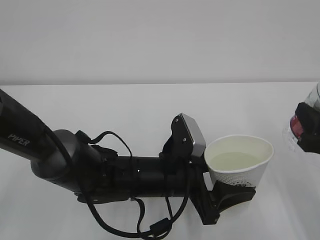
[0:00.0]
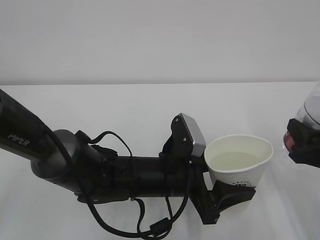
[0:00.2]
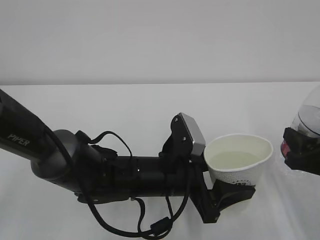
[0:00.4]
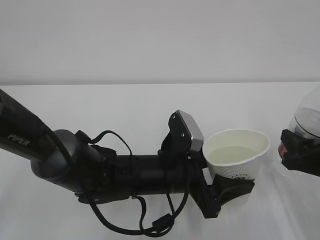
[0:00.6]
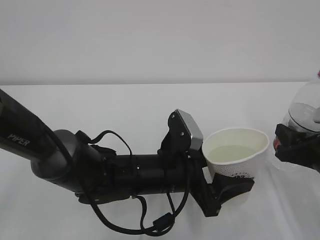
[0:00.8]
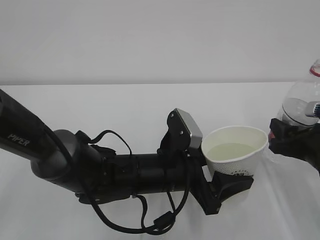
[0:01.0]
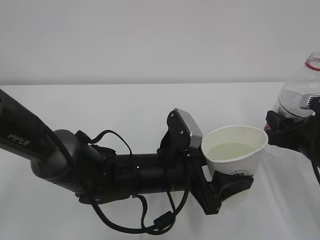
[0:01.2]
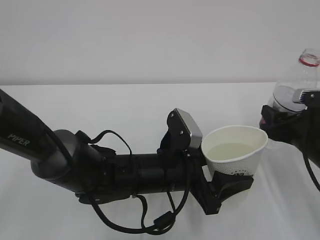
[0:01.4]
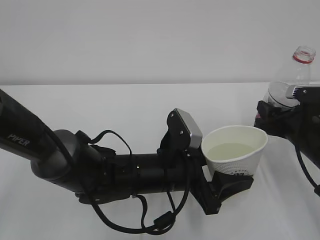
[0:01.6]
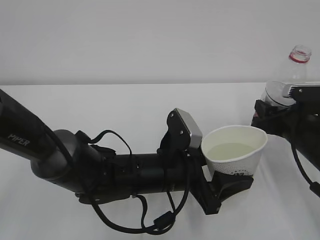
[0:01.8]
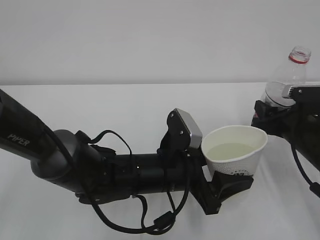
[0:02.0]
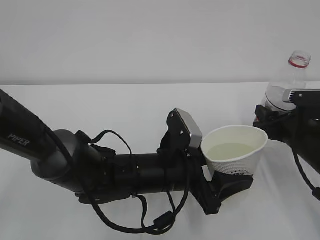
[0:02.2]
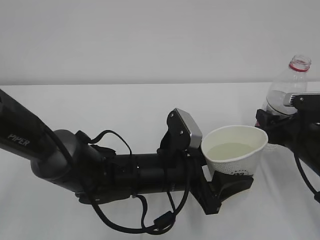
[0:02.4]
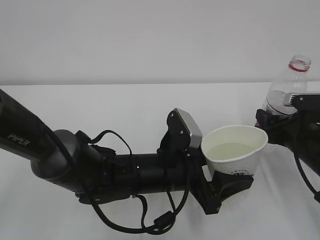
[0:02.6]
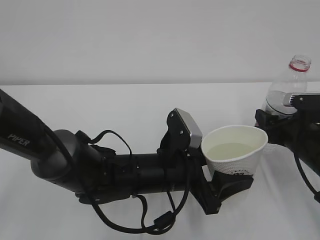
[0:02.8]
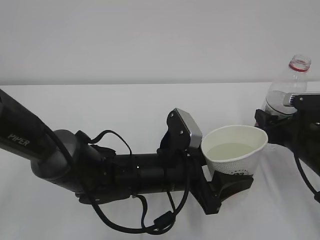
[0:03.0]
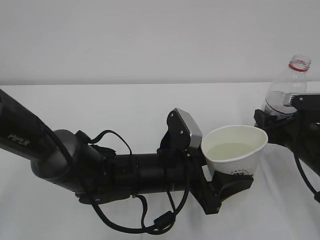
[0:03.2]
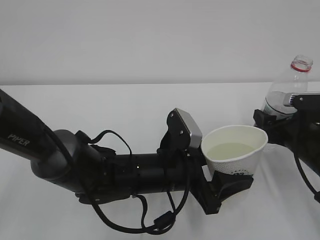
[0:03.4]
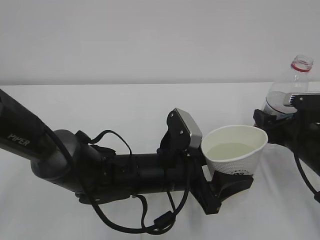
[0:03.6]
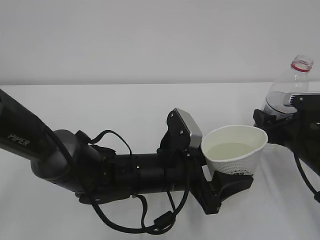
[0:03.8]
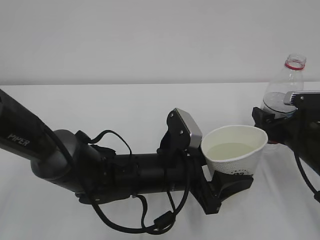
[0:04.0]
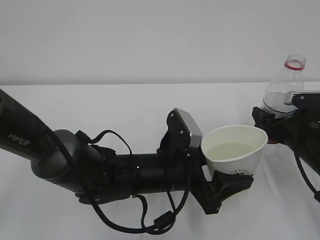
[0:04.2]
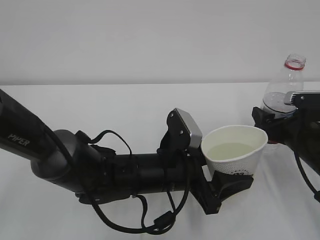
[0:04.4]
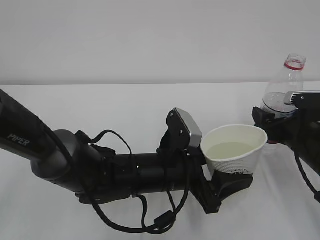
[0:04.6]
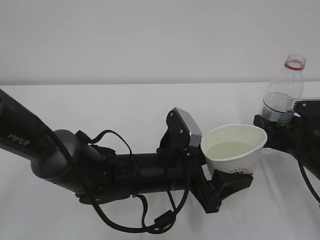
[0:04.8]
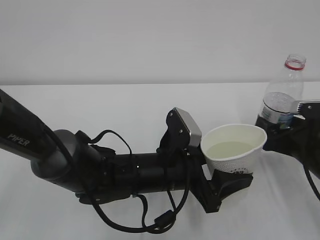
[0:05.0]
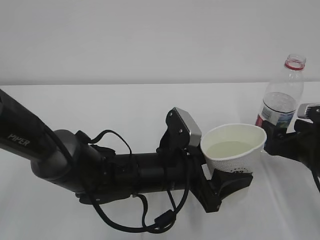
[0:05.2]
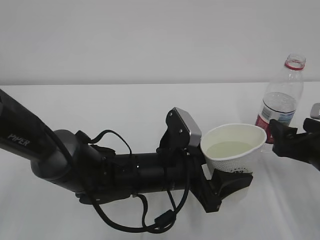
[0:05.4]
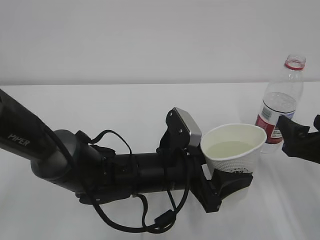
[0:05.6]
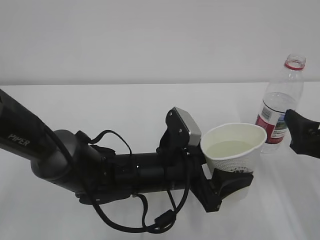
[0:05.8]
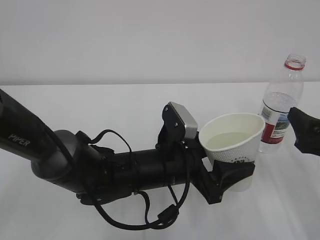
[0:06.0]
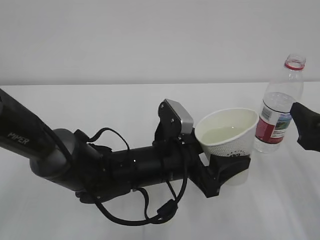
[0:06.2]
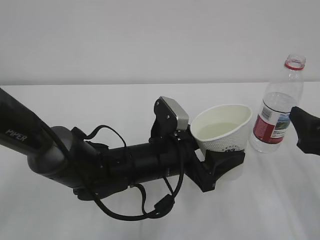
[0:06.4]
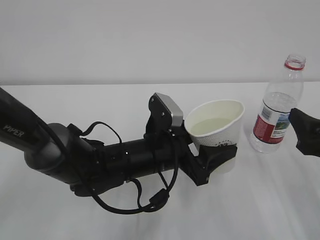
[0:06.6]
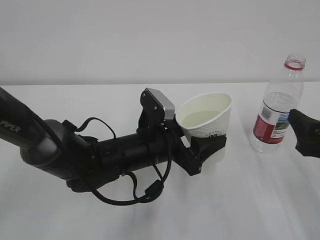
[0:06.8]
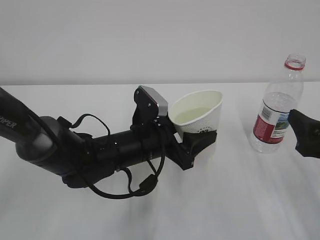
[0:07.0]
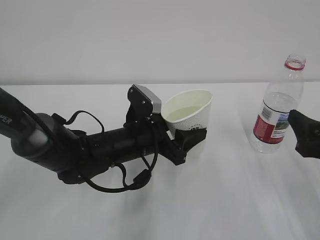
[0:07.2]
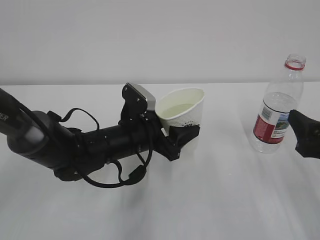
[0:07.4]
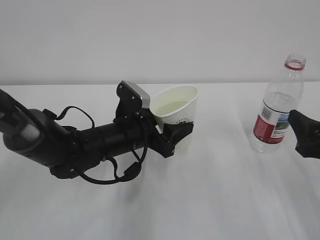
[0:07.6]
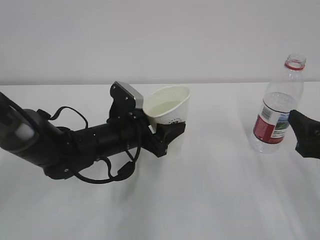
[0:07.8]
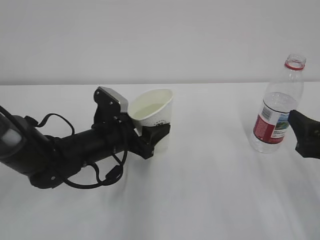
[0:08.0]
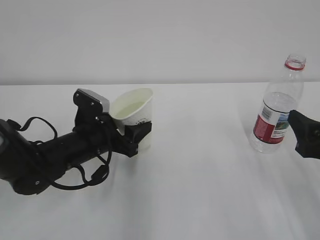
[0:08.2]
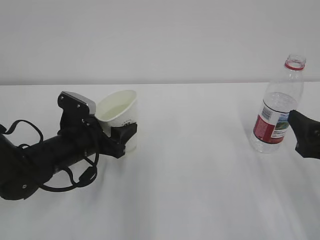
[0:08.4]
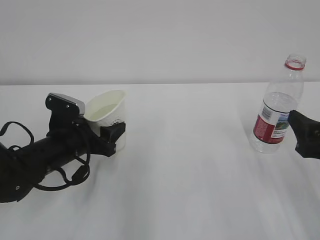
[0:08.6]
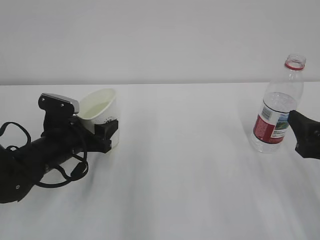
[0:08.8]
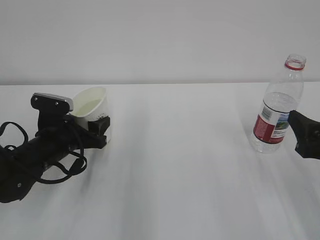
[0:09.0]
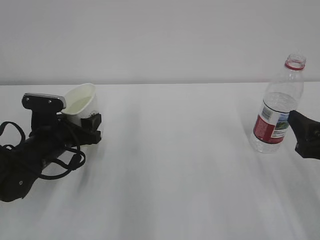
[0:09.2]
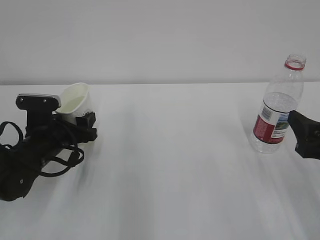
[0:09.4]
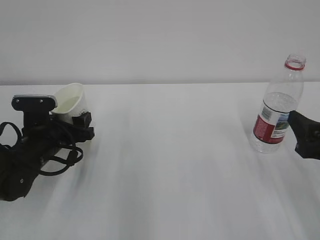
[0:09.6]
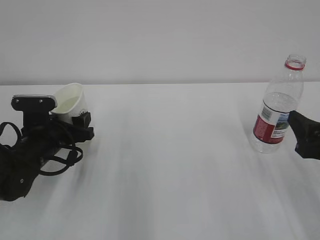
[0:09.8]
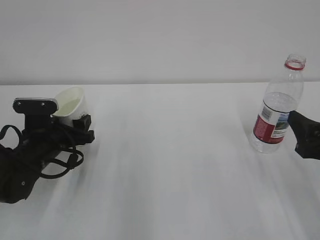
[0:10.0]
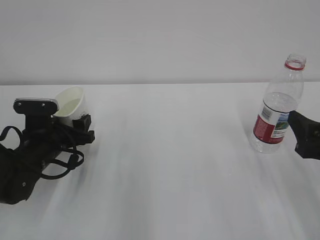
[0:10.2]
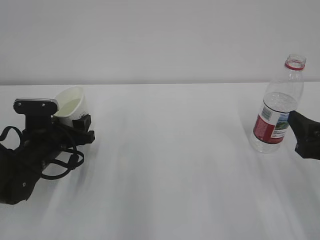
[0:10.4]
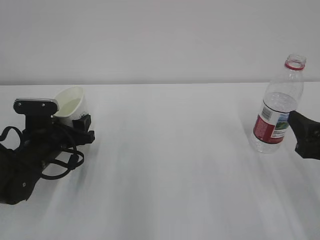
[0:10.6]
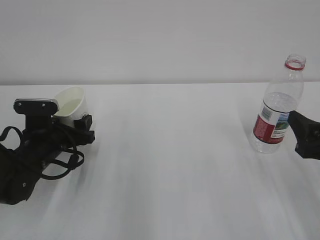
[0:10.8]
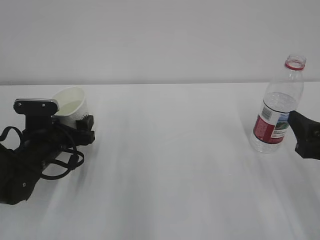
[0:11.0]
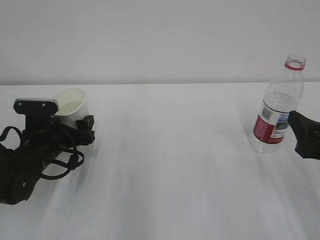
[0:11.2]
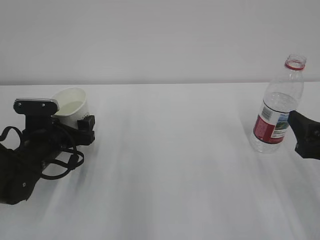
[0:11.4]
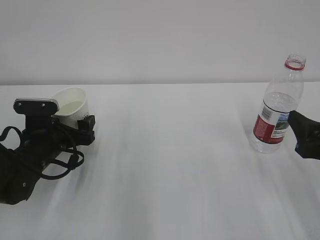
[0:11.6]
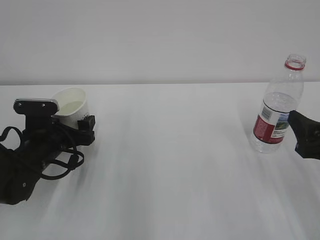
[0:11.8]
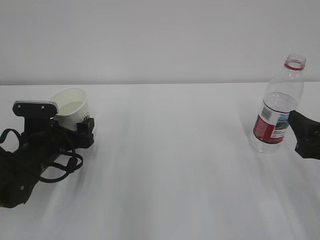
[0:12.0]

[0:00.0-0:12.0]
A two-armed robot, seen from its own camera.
0:00.0 to 0:01.6: The right gripper shifts about 10 cm forward and downward.
0:01.6 to 0:03.0: Both grippers stay put.
0:03.0 to 0:04.4: The right gripper opens.
0:04.4 to 0:06.0: The right gripper heads backward and upward, covering some 10 cm.
0:06.0 to 0:07.6: The left gripper is displaced forward and to the left by roughly 10 cm.
0:07.6 to 0:09.0: The left gripper moves to the left, approximately 15 cm.
0:09.0 to 0:10.4: The grippers move only a little.
0:10.4 to 0:12.0: The left gripper opens.

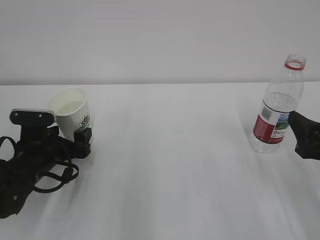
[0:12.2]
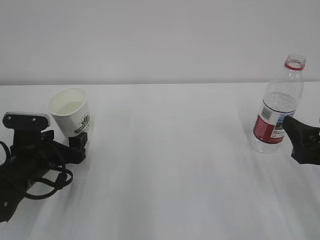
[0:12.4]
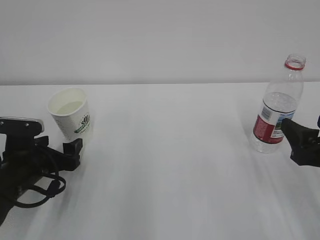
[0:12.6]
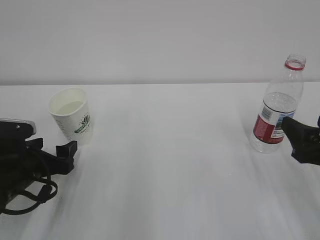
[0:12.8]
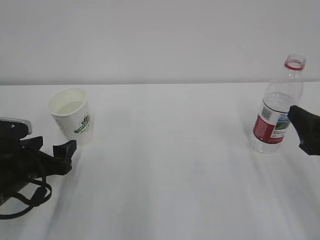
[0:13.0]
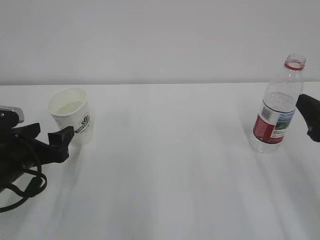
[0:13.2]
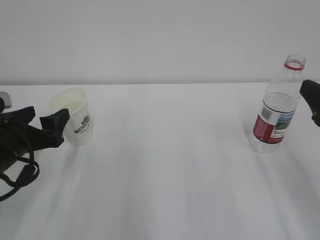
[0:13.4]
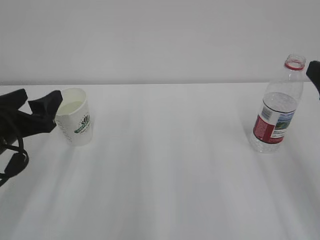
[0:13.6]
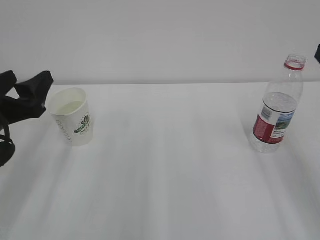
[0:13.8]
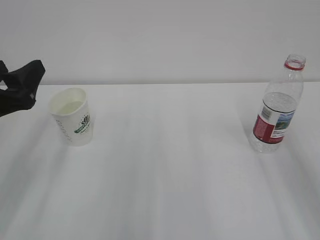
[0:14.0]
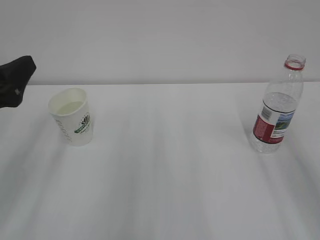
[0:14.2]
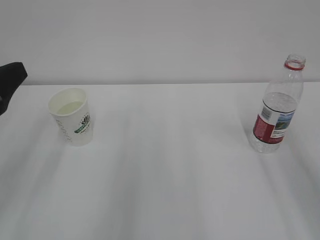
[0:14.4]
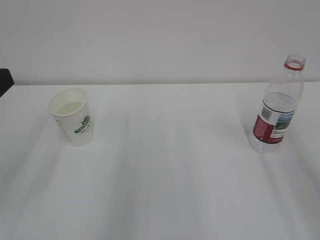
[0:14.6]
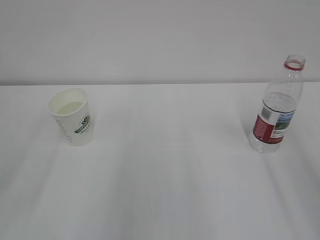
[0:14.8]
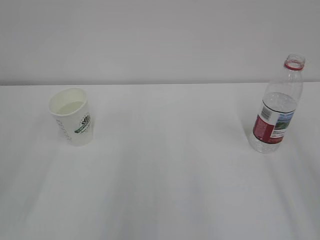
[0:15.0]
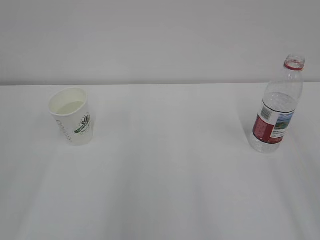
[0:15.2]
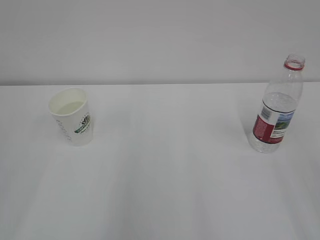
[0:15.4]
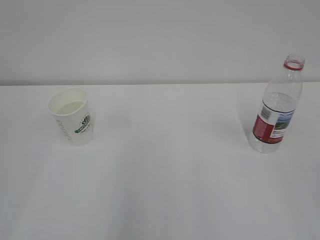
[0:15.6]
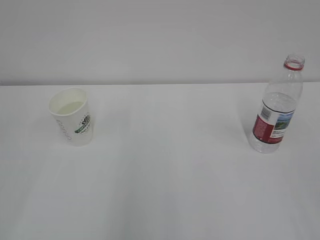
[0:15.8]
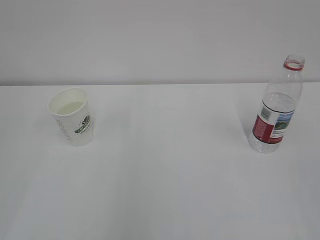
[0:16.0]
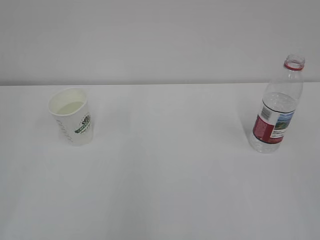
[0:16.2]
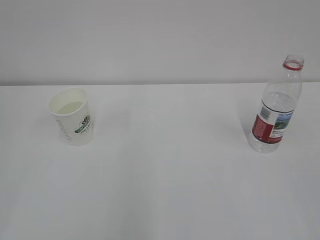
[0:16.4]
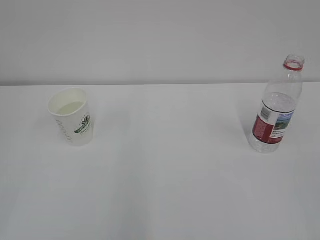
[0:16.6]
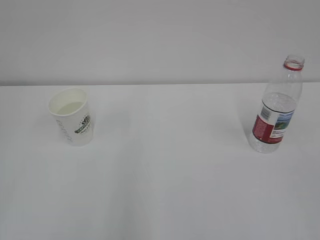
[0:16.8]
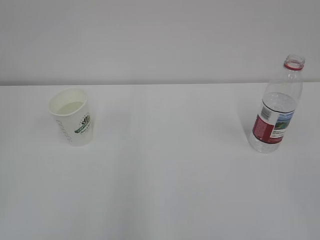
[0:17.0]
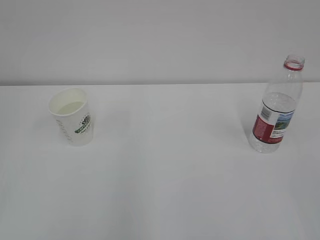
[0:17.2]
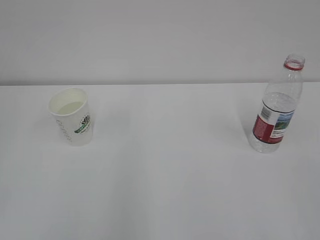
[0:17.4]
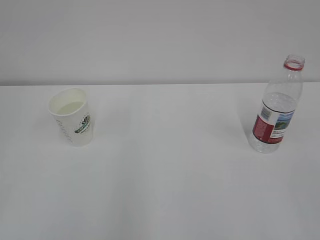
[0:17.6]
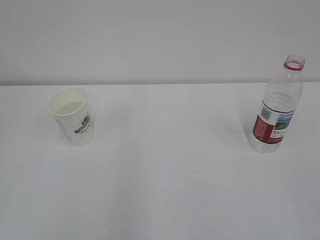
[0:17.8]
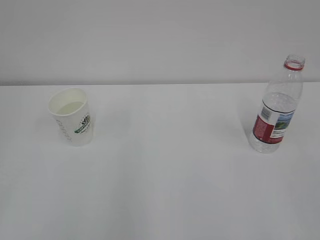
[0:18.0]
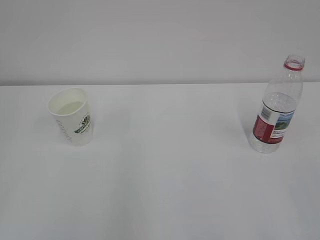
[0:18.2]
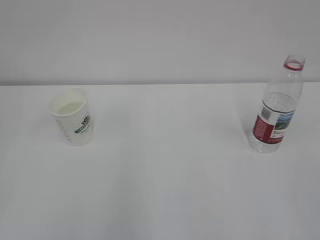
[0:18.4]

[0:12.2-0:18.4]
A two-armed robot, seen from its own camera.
0:12.2 to 0:13.8: The right gripper moves upward, about 10 cm, while the left gripper travels upward and backward by roughly 15 cm.
0:13.8 to 0:15.4: The left gripper goes roughly 20 cm backward and upward.
